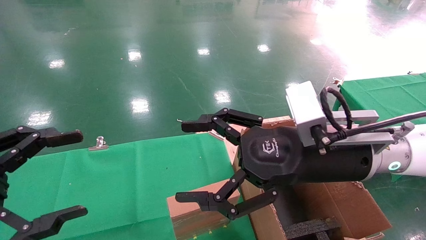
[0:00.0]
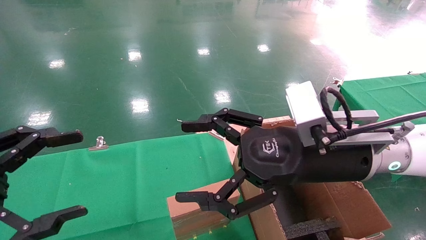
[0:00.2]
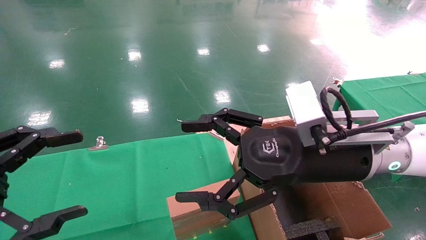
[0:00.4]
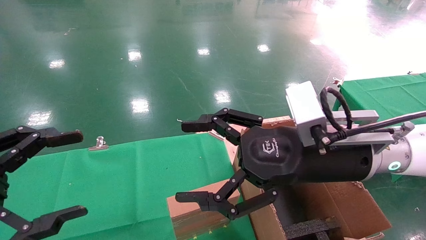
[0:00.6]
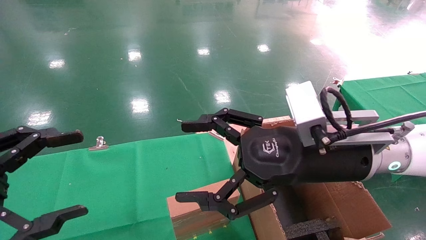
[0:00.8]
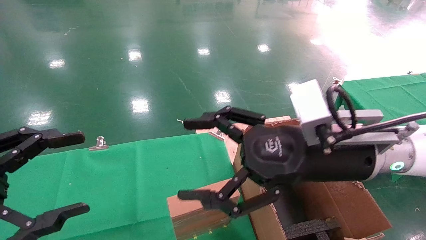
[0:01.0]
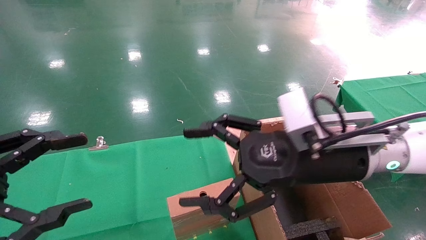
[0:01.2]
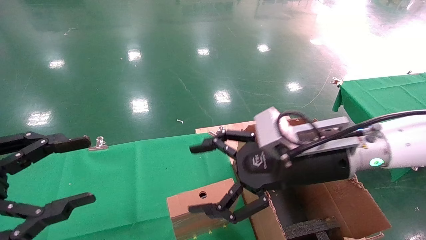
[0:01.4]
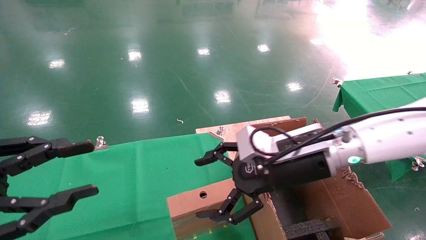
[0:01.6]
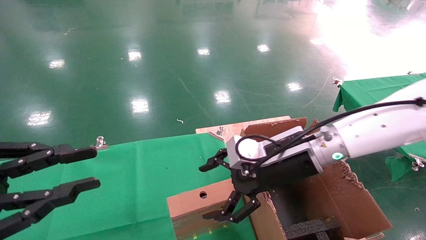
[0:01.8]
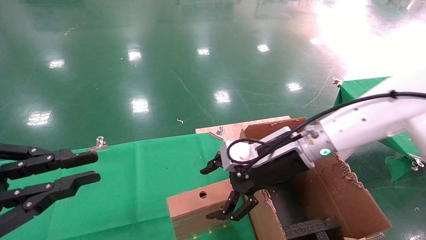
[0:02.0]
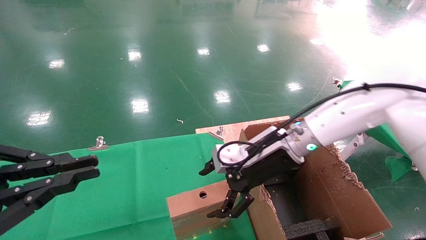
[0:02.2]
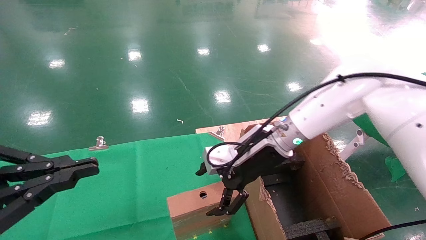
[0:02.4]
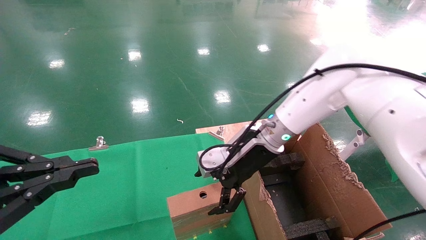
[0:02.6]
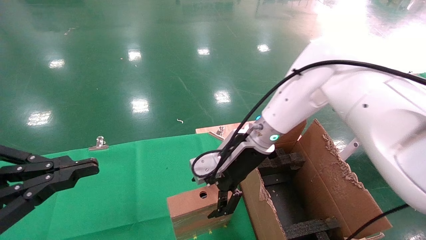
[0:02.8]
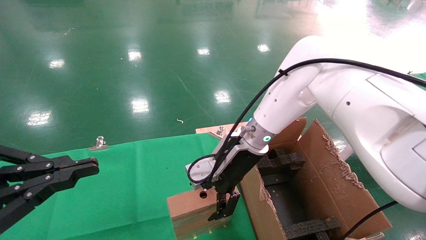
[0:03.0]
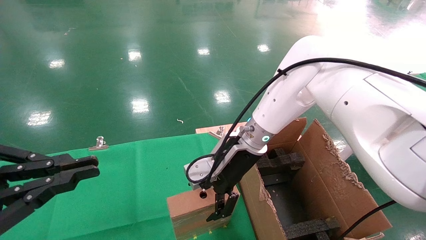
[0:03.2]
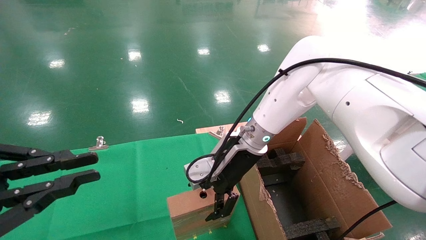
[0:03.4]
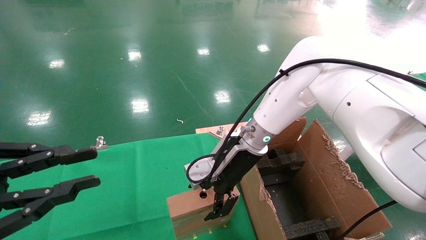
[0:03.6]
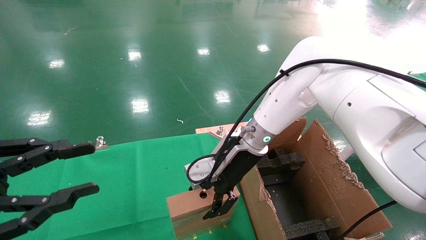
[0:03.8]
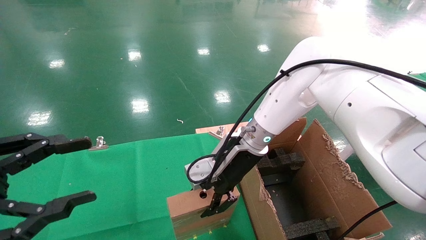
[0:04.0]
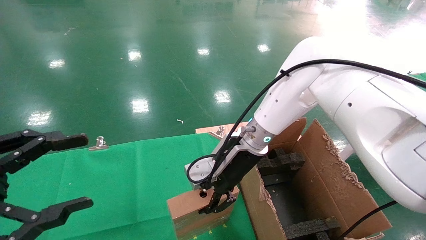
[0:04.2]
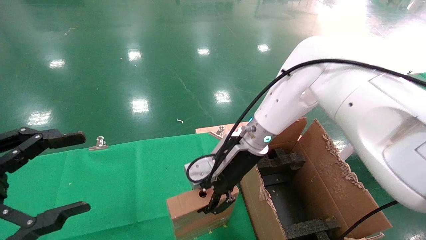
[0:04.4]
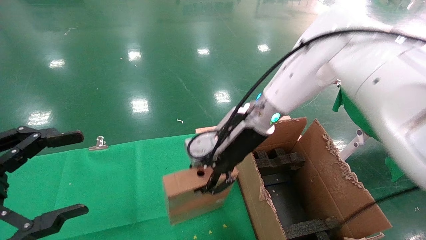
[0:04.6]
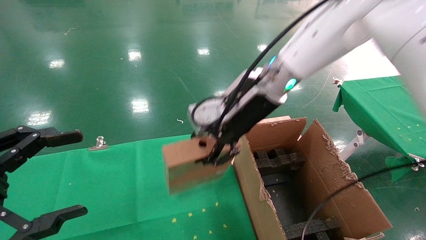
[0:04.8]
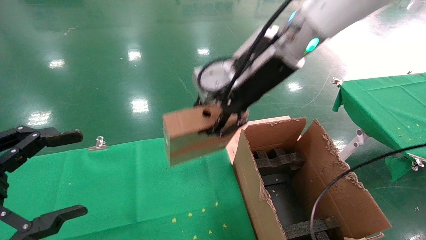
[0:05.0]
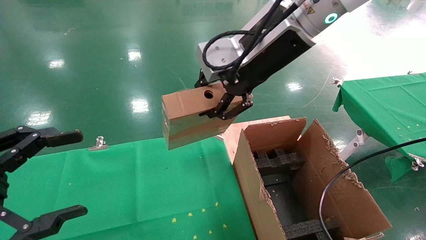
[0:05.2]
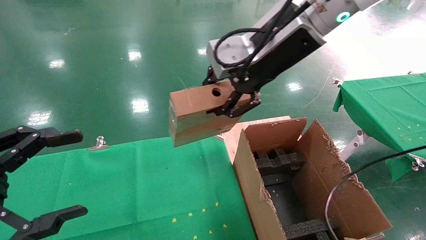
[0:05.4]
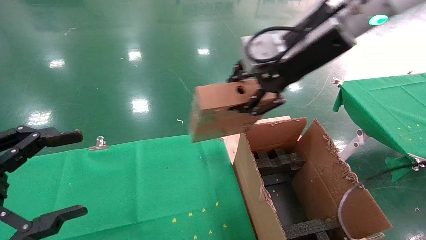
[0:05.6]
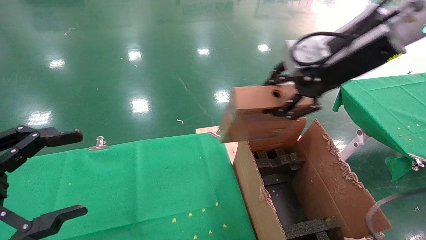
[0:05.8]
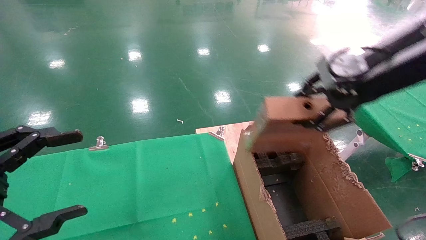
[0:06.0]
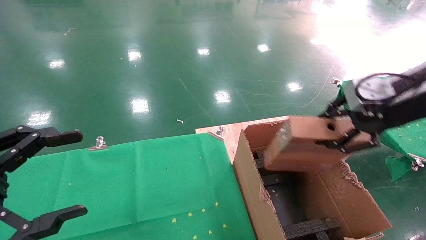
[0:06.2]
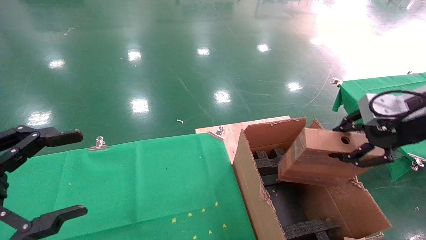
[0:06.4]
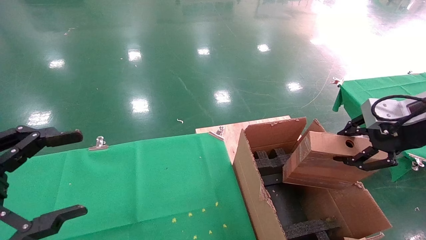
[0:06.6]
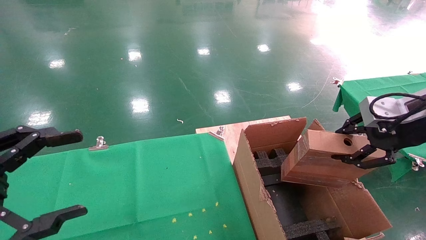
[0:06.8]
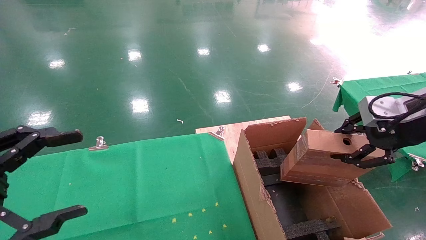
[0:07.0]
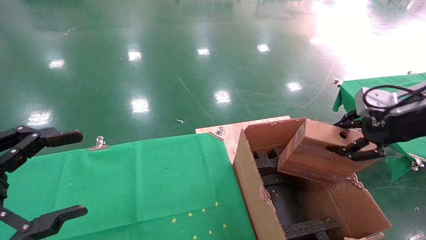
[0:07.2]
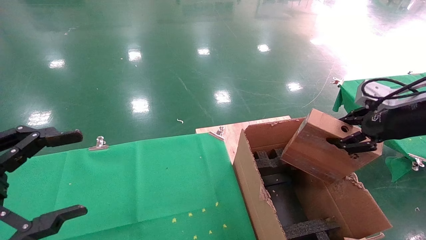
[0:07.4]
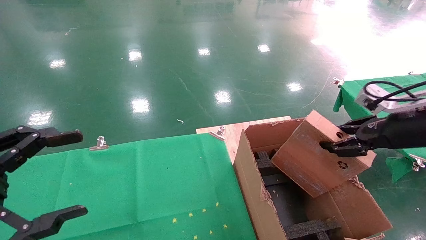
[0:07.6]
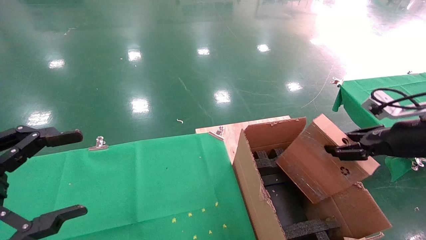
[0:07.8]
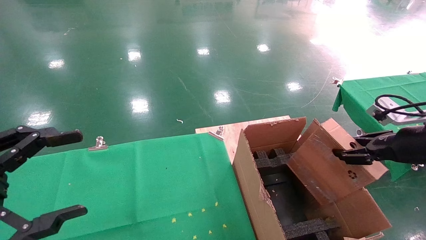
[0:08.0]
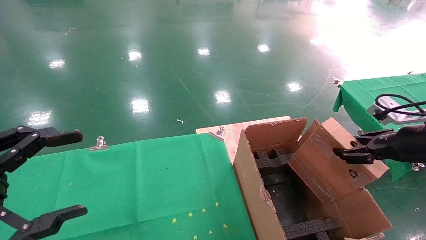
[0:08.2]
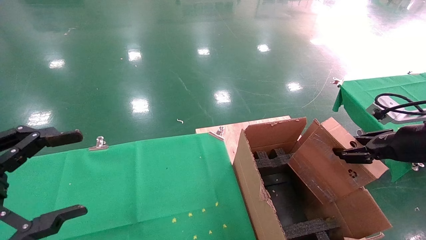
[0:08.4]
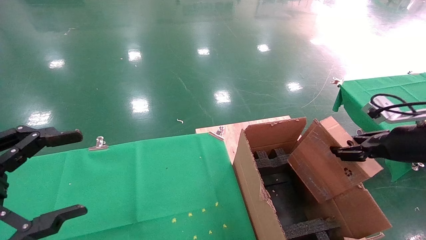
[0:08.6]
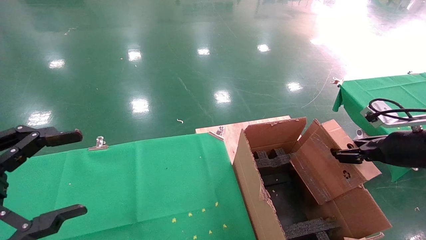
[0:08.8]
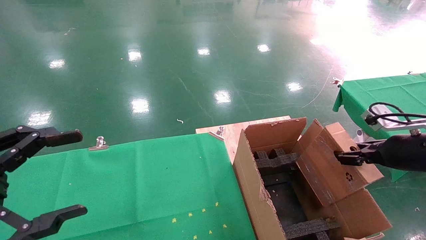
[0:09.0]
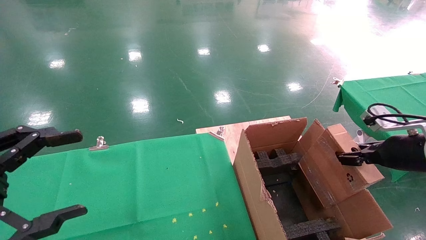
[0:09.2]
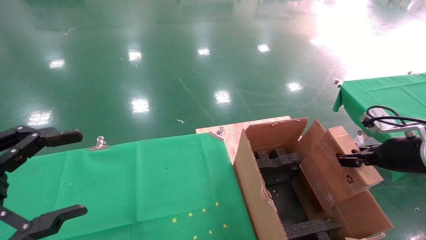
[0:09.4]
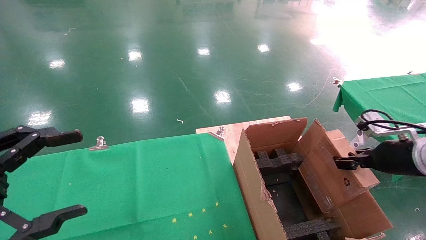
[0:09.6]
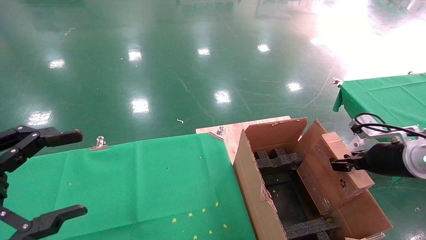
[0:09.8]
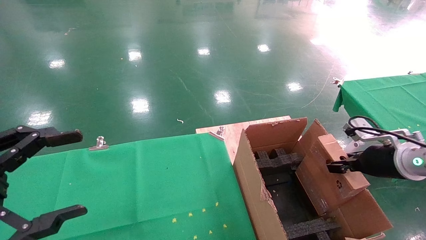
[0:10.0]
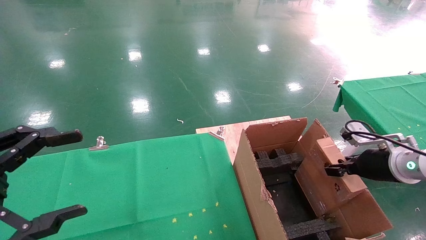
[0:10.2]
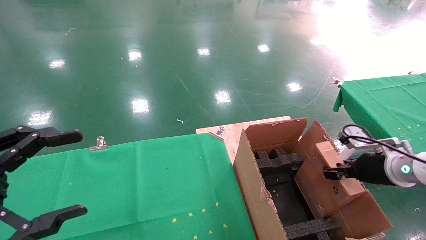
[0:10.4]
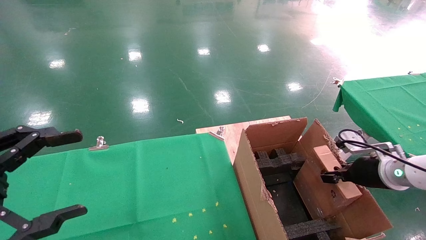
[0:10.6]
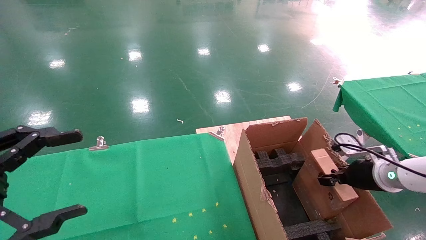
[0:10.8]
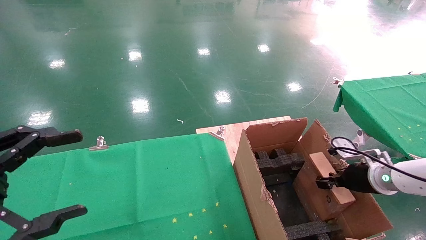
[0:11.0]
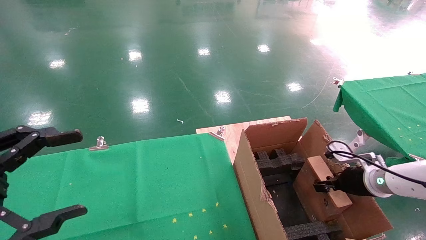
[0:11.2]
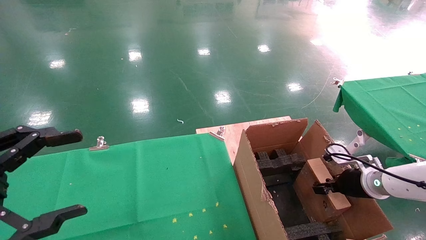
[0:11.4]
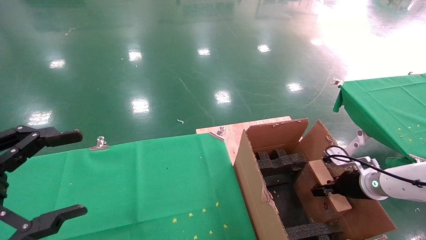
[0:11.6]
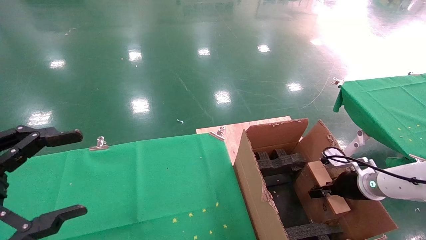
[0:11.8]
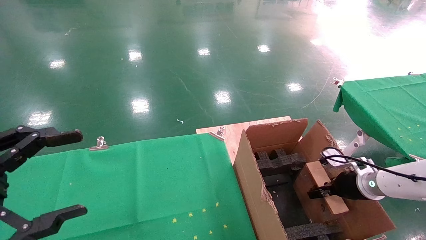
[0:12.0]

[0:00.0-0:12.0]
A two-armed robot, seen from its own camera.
Task of the whole recording: using a robotic arm to pick up a cardboard box and palace it the carton.
Step, 0:01.4 to 0:04.4: Pick up the mouse and the power cord paper box.
0:00.0 to 0:01.6: The right gripper is displaced forward by approximately 5 cm. Meanwhile the left gripper closes its fingers.
0:01.6 to 0:03.0: The left gripper closes, while the right gripper goes some 15 cm forward and to the left.
0:03.0 to 0:04.4: The left gripper opens its fingers. The right gripper closes up.
0:04.4 to 0:06.0: The right gripper moves to the right, upward and backward, some 30 cm.
0:06.0 to 0:07.6: The right gripper shifts approximately 15 cm downward and to the right.
0:07.6 to 0:09.0: The right gripper is displaced downward by approximately 5 cm.
0:09.0 to 0:10.4: The right gripper heads downward, covering roughly 5 cm.
0:10.4 to 0:12.0: The right gripper heads downward, covering some 10 cm.

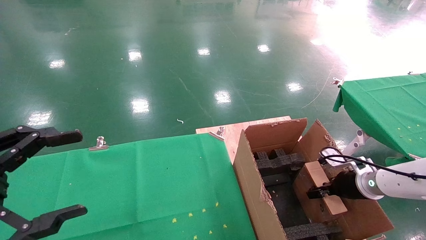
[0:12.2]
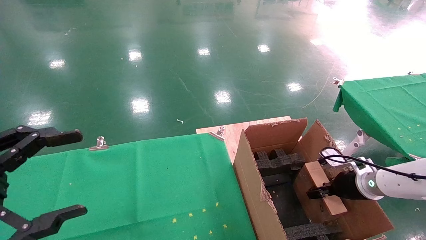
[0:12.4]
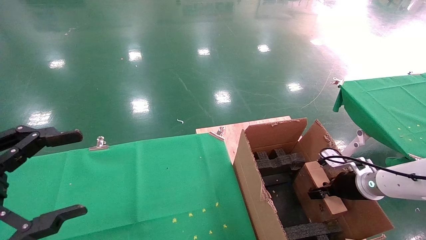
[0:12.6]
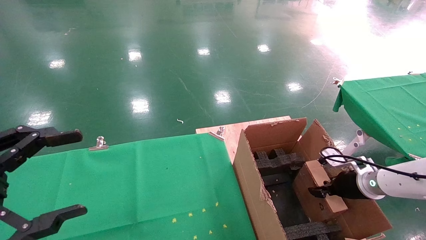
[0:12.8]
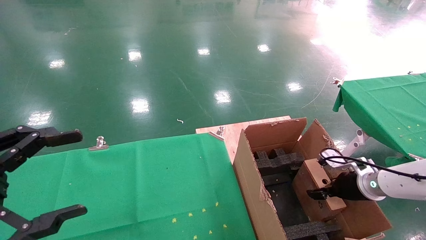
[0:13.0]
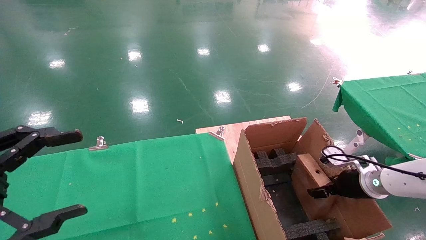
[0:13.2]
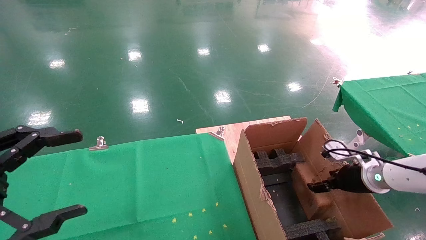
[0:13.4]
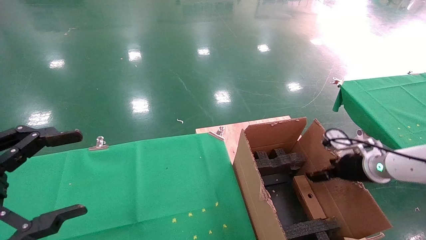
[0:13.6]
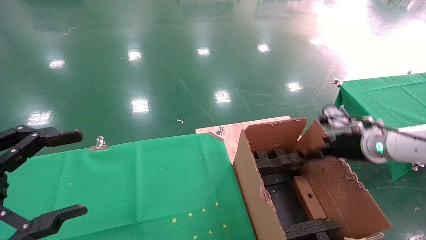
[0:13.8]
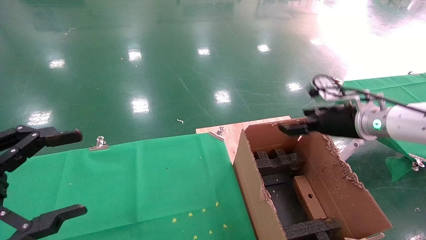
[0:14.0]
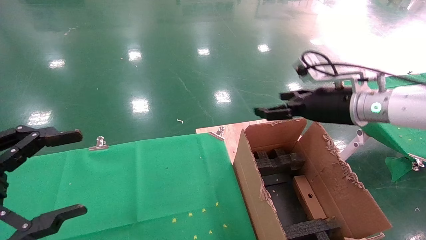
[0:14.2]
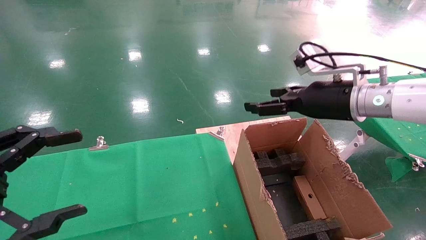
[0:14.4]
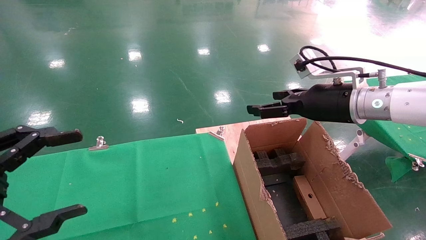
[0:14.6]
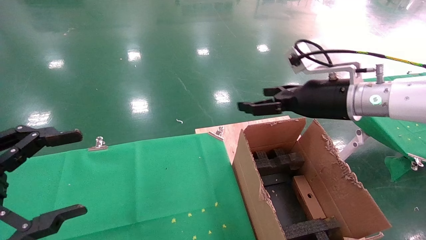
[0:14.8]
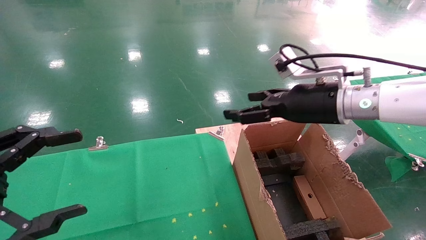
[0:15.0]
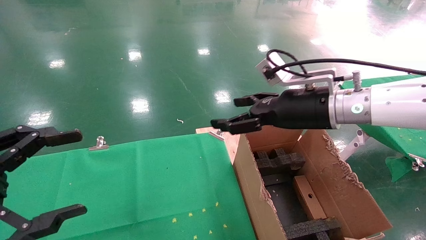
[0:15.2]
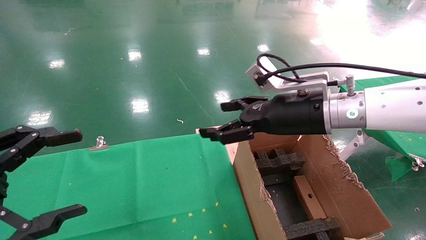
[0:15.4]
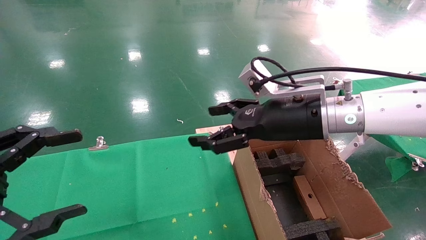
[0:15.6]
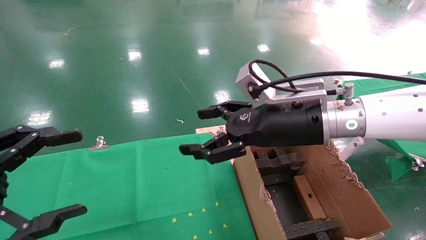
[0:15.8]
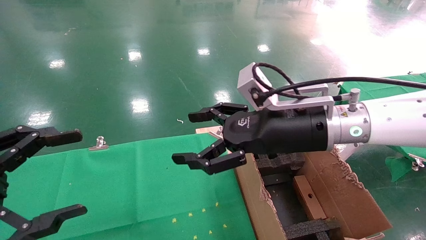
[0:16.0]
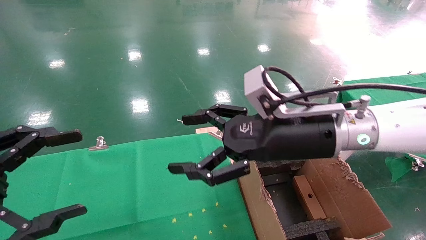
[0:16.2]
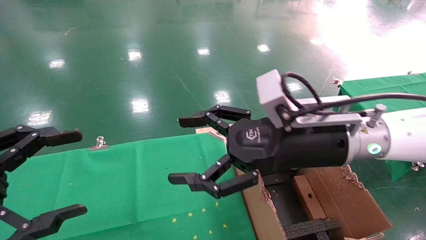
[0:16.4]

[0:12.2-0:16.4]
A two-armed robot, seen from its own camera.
Task of the whole recording: using a robotic arm to pick up a cardboard box and palace it the carton.
0:12.2 to 0:13.6: The right gripper heads upward, covering approximately 5 cm, and opens.
0:13.6 to 0:15.0: The right gripper is displaced to the left and upward by roughly 20 cm.
0:15.0 to 0:16.4: The right gripper shifts about 10 cm backward and to the left.
